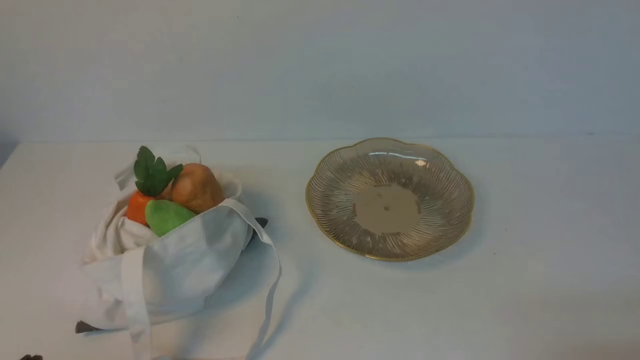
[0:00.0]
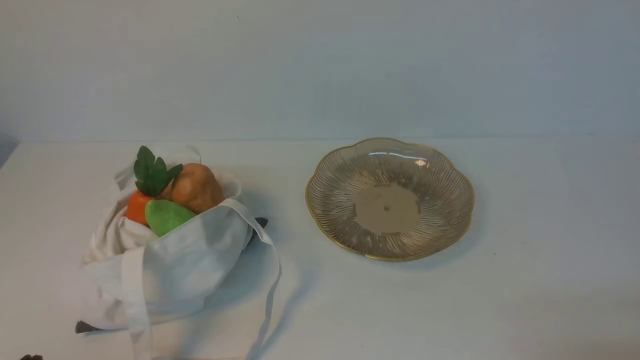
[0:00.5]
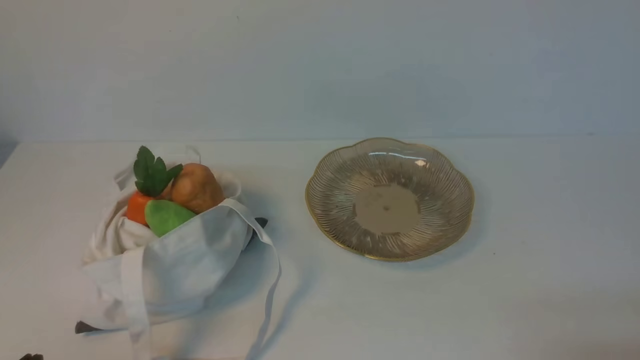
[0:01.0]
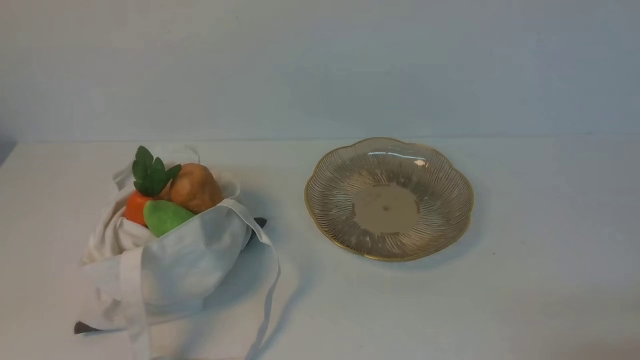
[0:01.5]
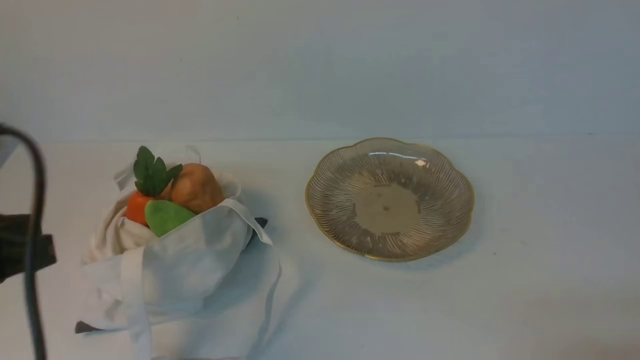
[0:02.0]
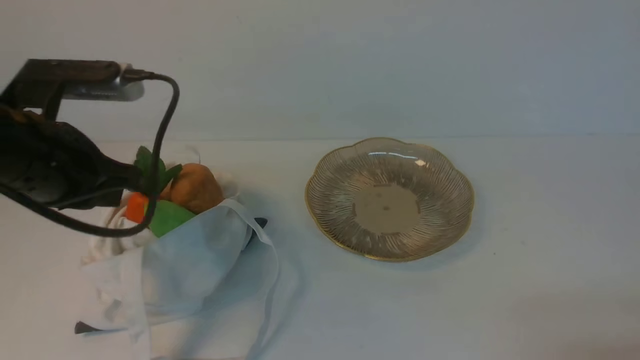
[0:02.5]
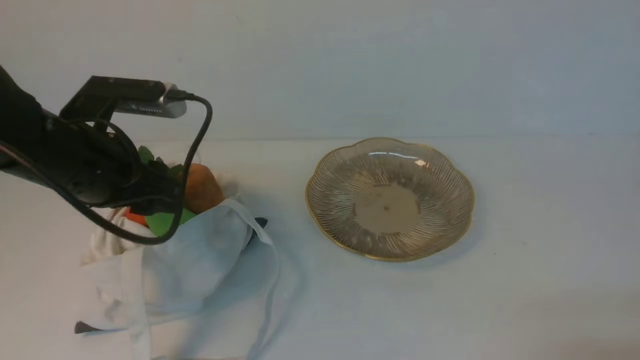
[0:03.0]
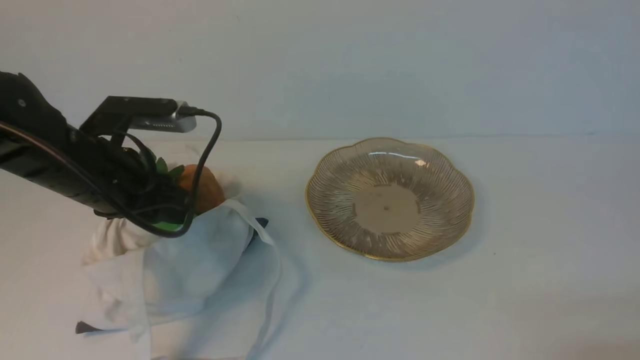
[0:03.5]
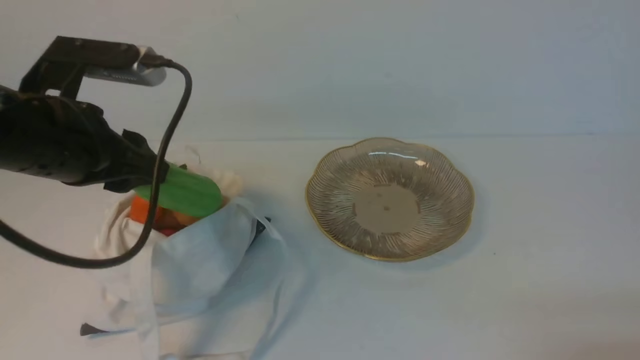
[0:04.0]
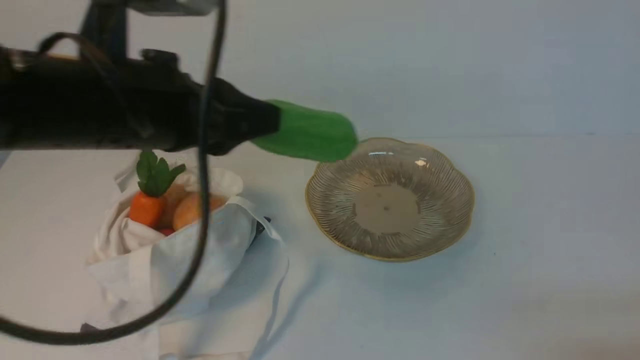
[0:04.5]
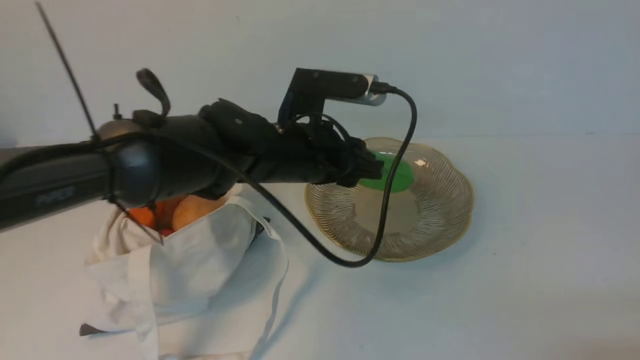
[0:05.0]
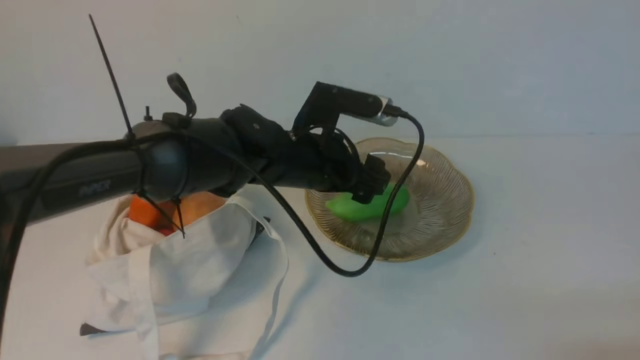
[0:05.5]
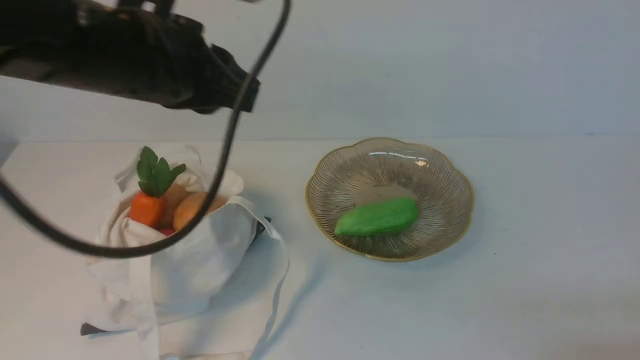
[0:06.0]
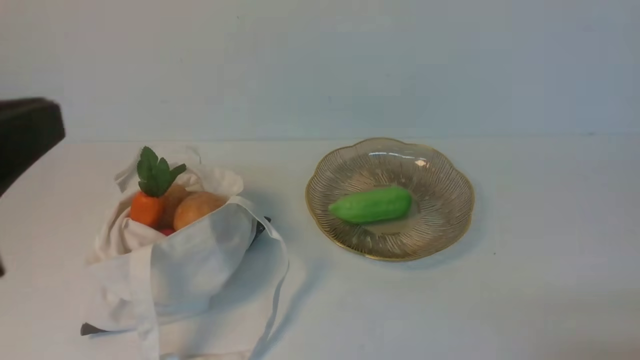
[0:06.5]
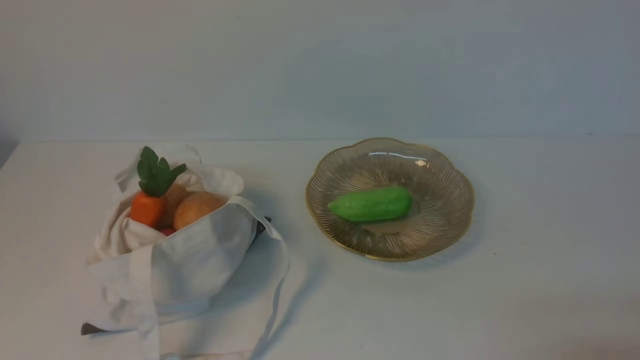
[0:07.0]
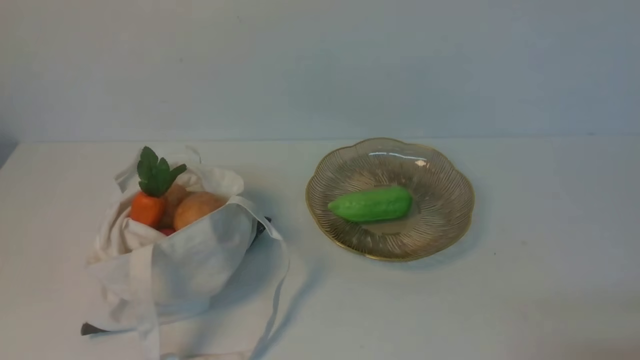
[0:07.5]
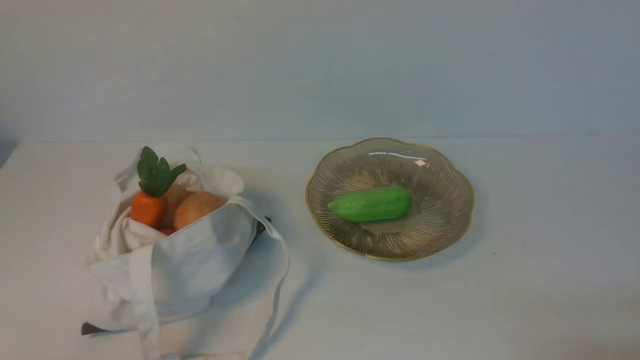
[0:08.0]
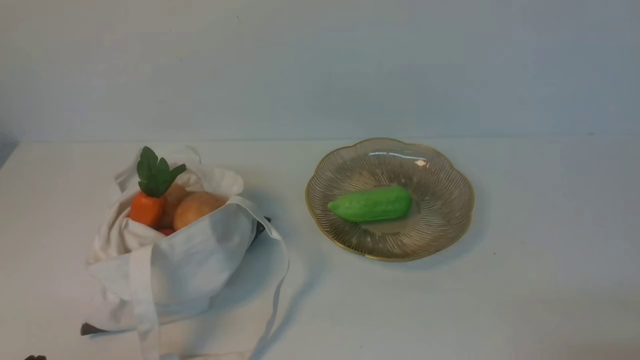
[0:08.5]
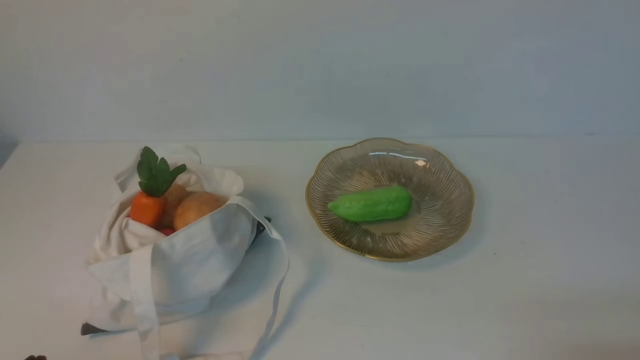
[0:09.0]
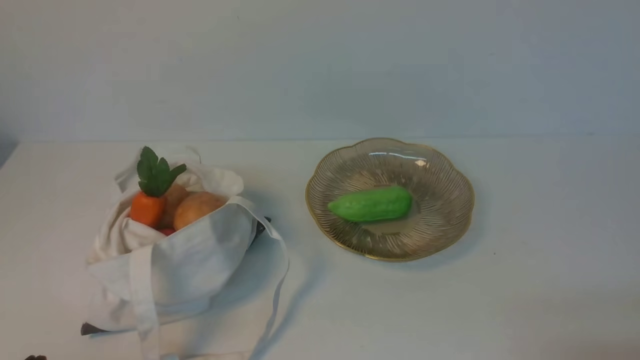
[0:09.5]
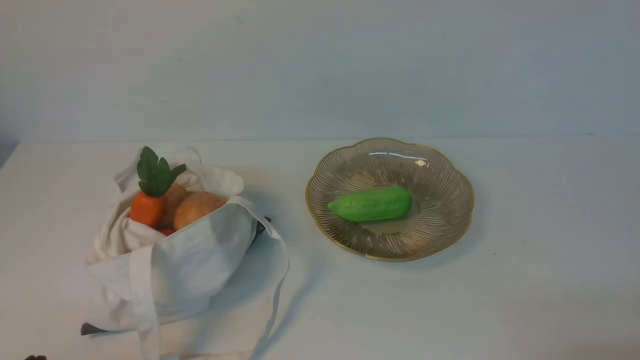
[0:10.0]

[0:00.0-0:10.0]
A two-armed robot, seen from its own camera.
Task of the whole recording: take vegetables from cloth bag on white table place on plate.
Step, 0:00.0 to 0:03.0: Grasp the bitter melon with left gripper.
Step, 0:04.0 to 0:05.5: Place the bitter melon on the plate with left gripper.
0:00.0 to 0:02.0: The left gripper shifts some 20 cm upward and forward.
0:02.0 to 0:04.0: The left gripper shifts approximately 10 cm forward, and opens its fingers.
0:04.0 to 0:06.0: The left gripper heads to the right and upward, covering some 10 cm, and closes up.
0:06.0 to 0:08.0: The left gripper travels backward, downward and to the left by about 30 cm.
0:08.0 to 0:10.0: Both grippers stay put.

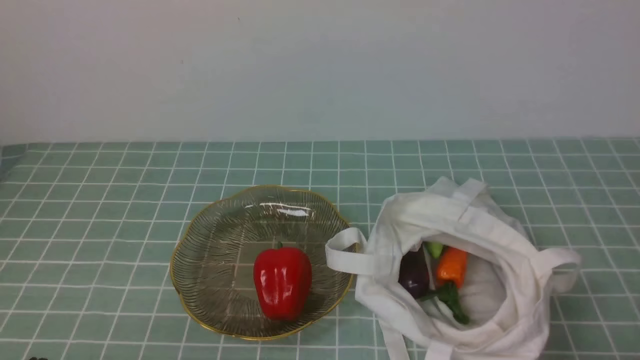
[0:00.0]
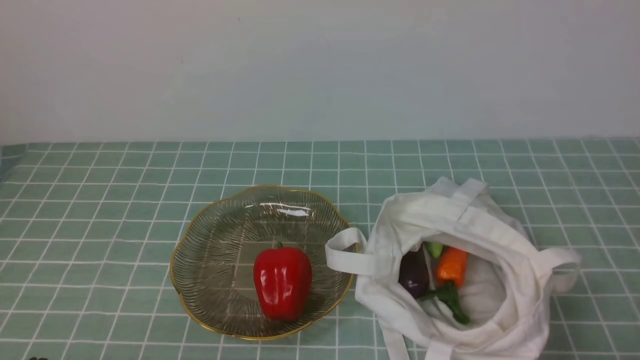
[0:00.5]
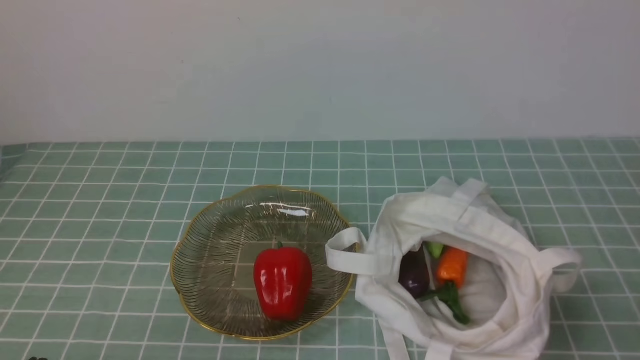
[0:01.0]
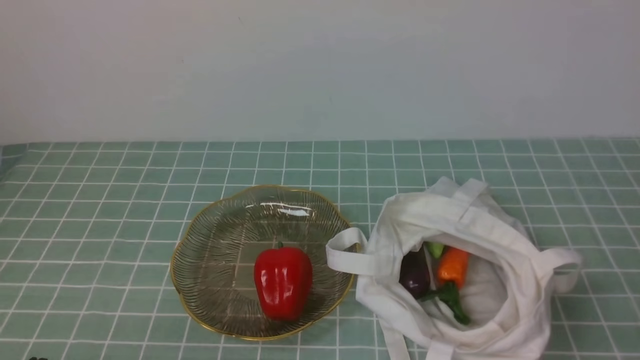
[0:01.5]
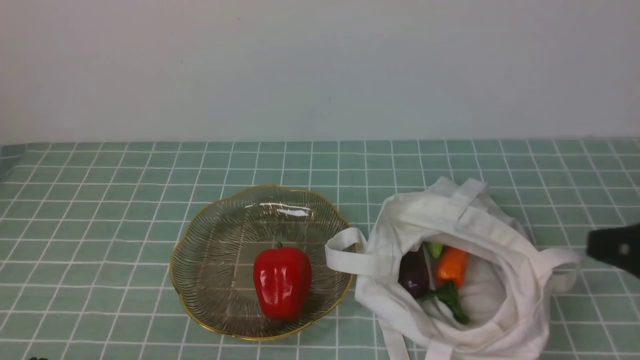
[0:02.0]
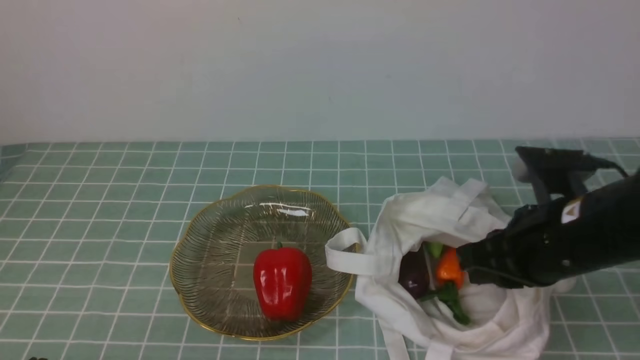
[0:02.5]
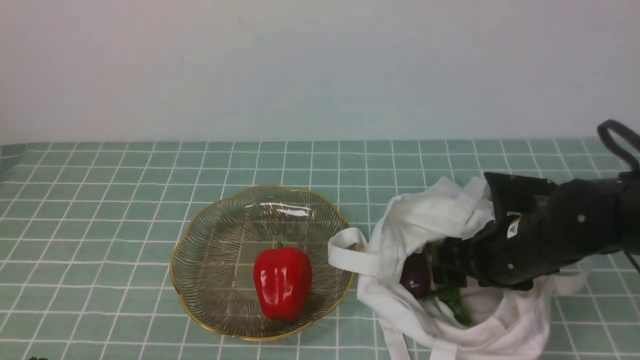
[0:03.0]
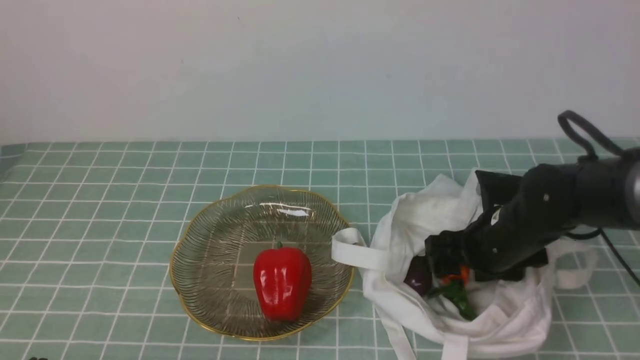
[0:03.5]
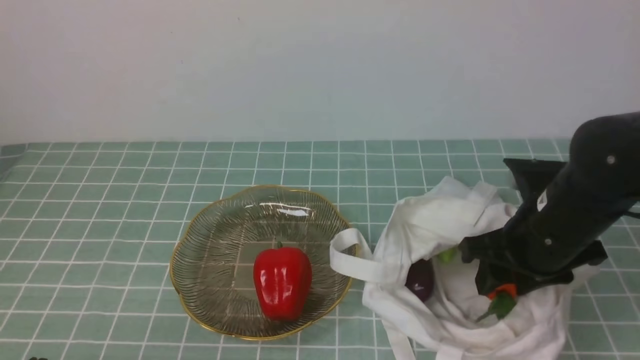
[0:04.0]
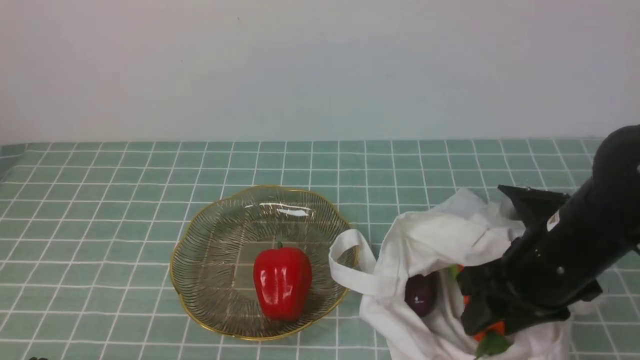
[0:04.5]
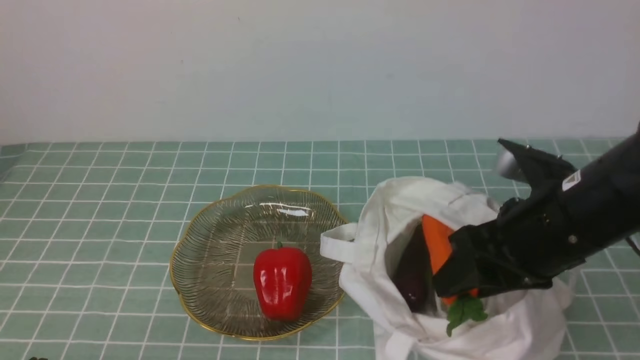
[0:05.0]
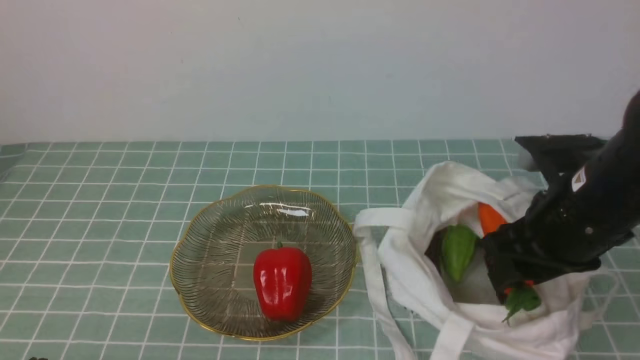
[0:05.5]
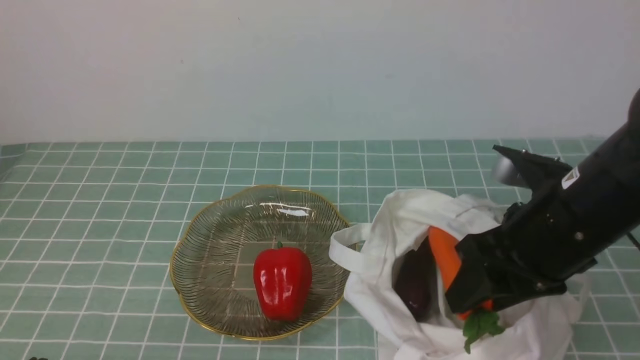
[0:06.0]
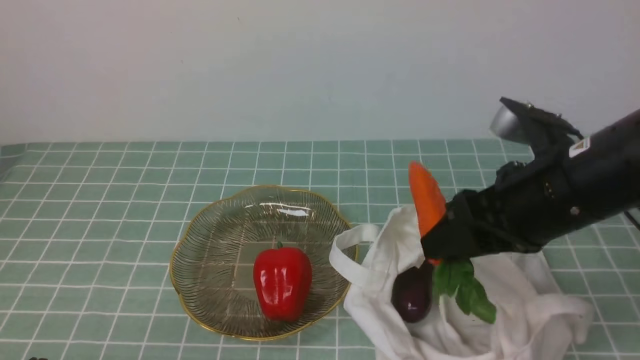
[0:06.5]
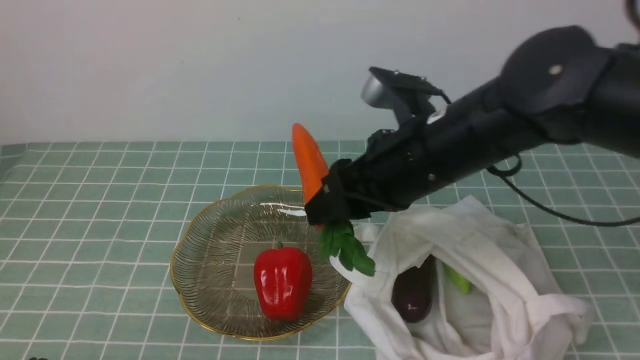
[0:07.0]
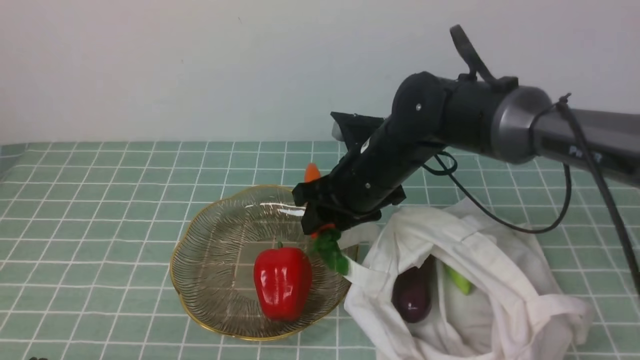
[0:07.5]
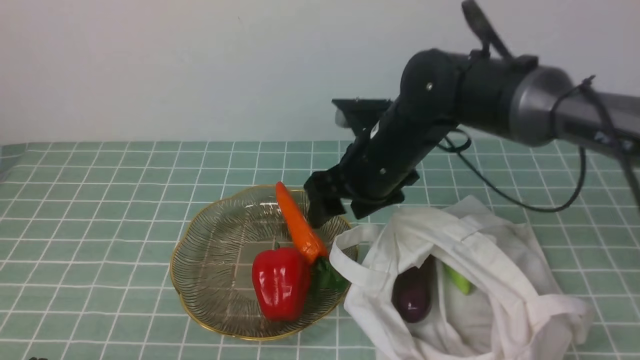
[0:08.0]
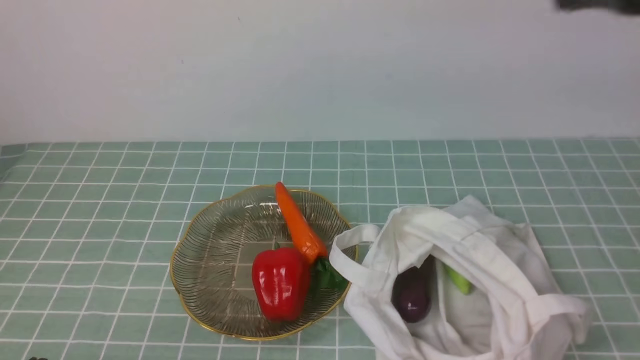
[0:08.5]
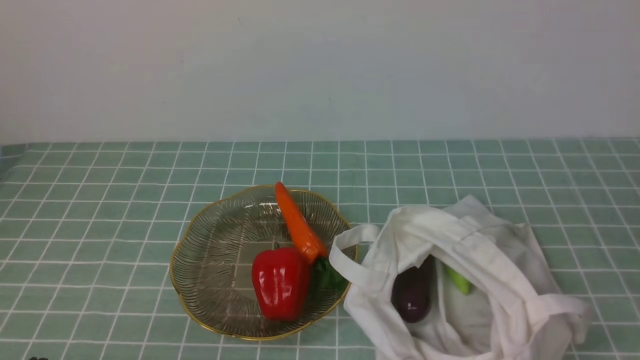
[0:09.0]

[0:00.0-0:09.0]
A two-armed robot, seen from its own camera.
Task of the whole recording: take vegetables from cloth bag on blue coffee tablecloth place on plate.
Step, 0:00.0 to 0:04.0: Grasp the radish with right gripper.
Step, 0:04.5 to 0:07.5: Place the radish on the plate with right gripper.
0:00.0 to 0:02.0: The right gripper moves upward and forward, some 15 cm.
0:02.0 to 0:04.5: The right gripper travels downward, forward and to the left by about 15 cm, and opens.
0:04.5 to 0:07.0: The right gripper goes some 15 cm to the left, upward and forward.
0:07.0 to 0:09.0: The right gripper shifts some 35 cm backward and to the right, and closes its fingers.

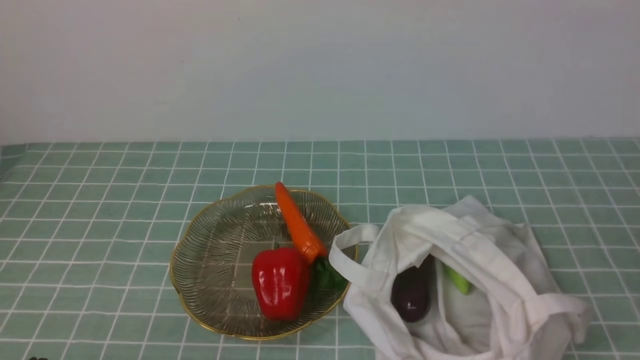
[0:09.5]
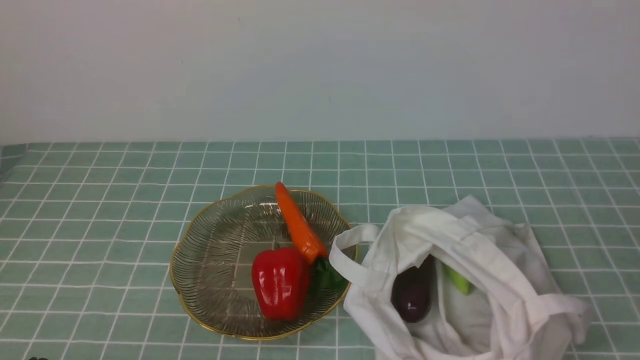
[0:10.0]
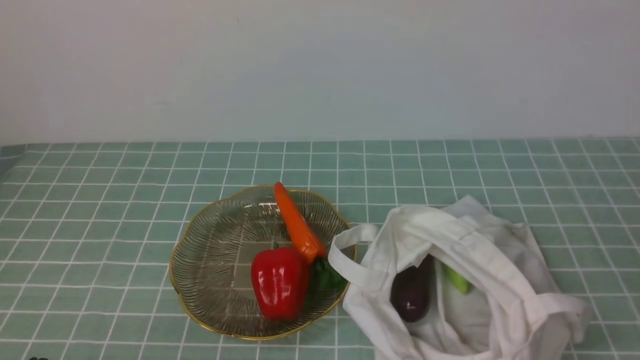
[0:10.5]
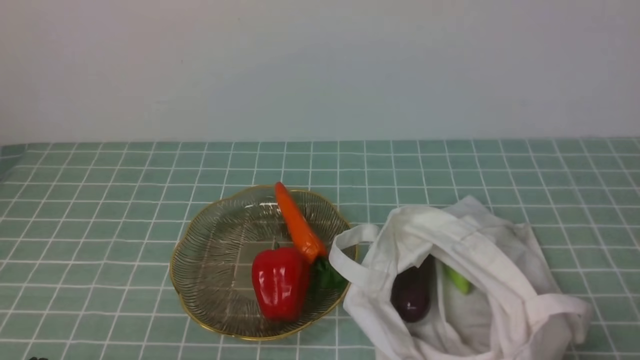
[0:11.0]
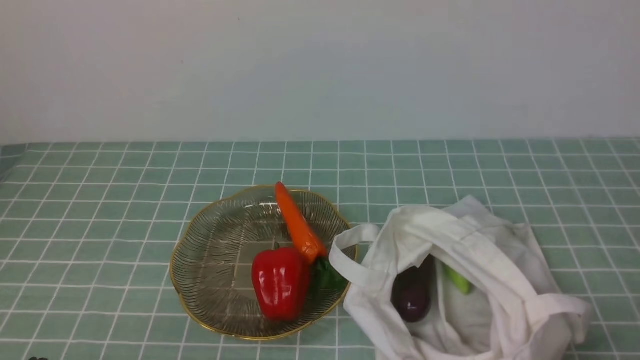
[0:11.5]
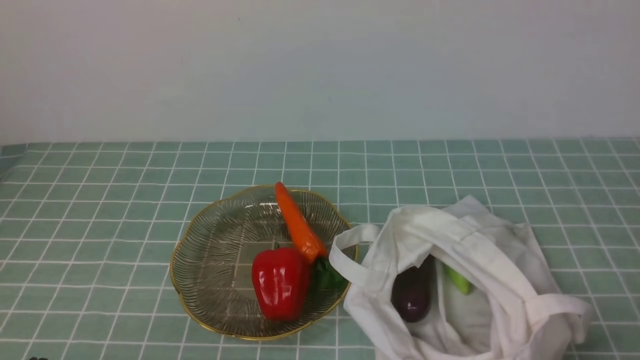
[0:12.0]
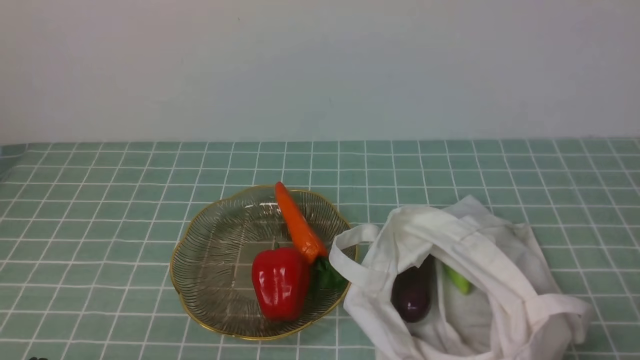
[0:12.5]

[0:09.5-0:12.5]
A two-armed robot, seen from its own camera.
Task of the whole recording: take vegetables from cloth bag on blue coffee tablecloth place on plate.
0:11.0 to 0:12.5: Both grippers stay about where they are.
